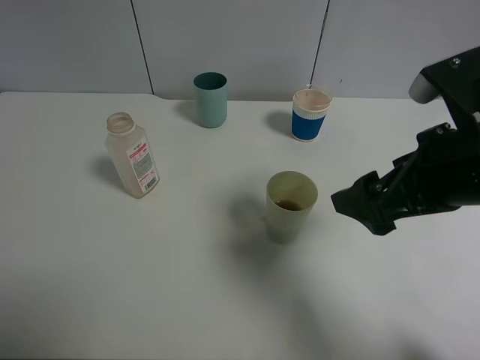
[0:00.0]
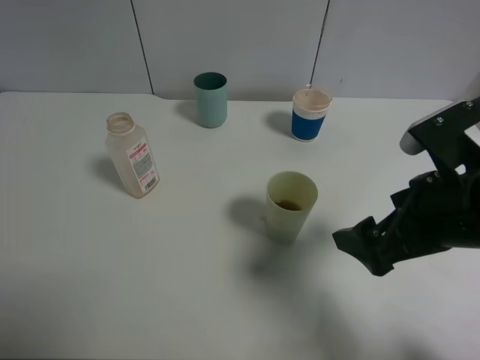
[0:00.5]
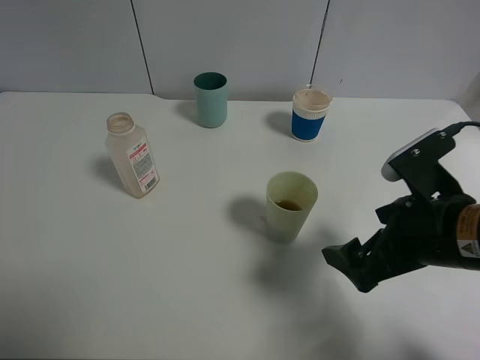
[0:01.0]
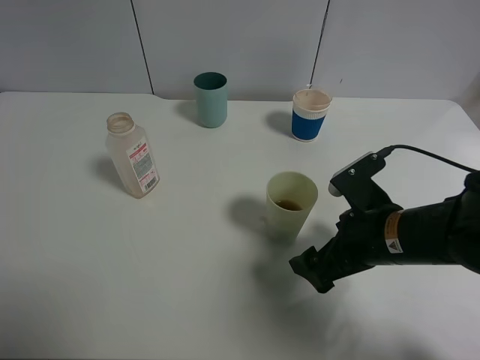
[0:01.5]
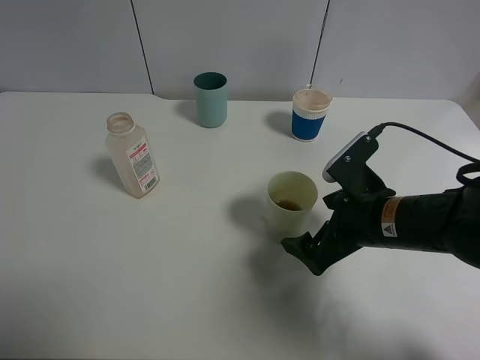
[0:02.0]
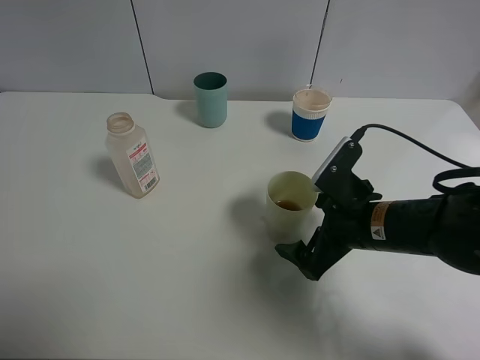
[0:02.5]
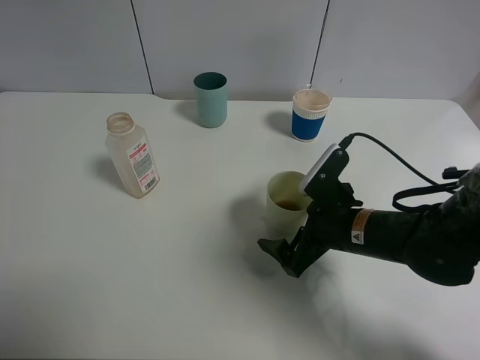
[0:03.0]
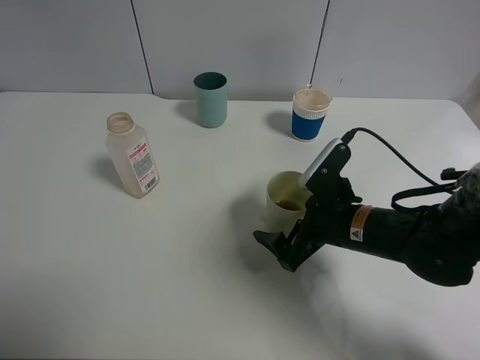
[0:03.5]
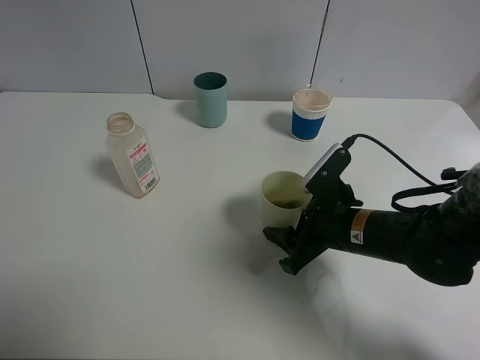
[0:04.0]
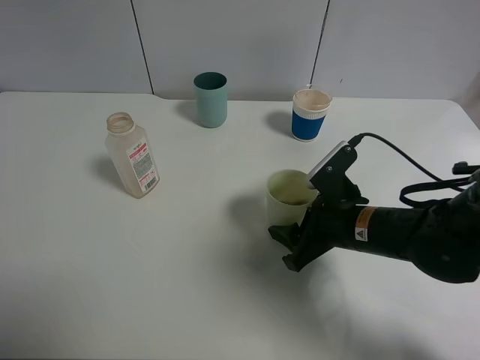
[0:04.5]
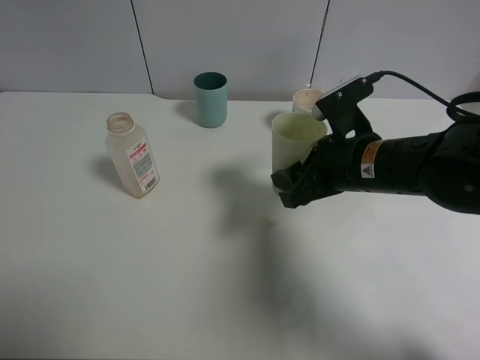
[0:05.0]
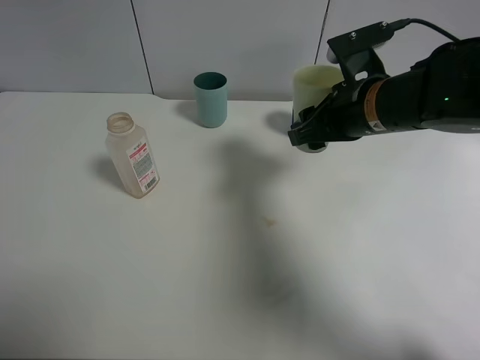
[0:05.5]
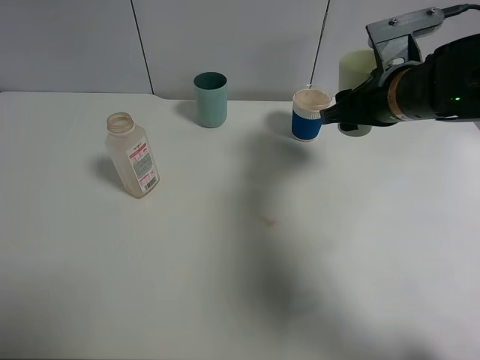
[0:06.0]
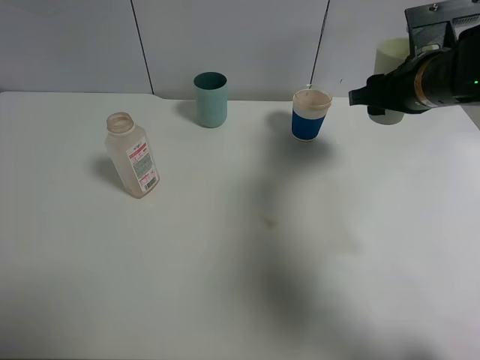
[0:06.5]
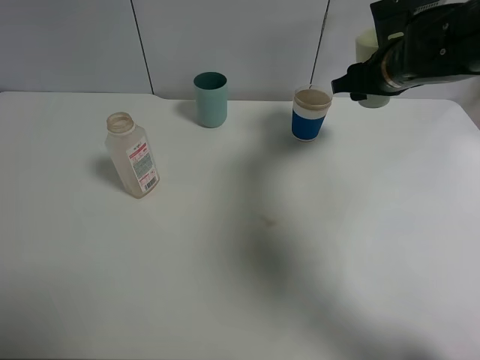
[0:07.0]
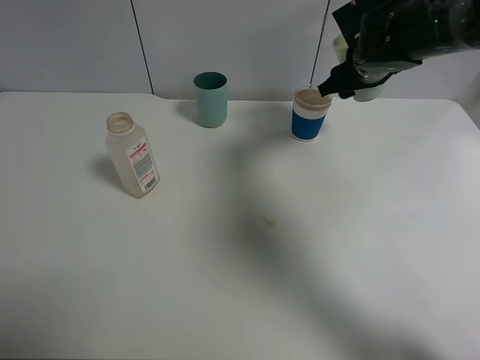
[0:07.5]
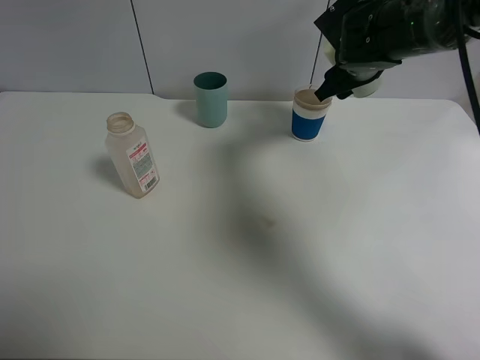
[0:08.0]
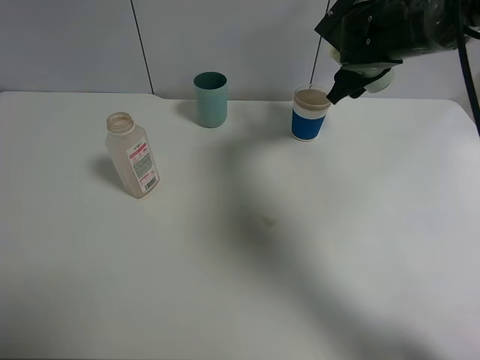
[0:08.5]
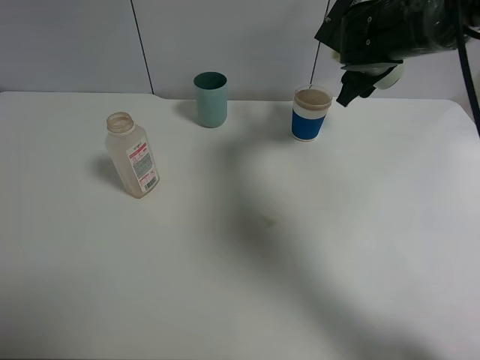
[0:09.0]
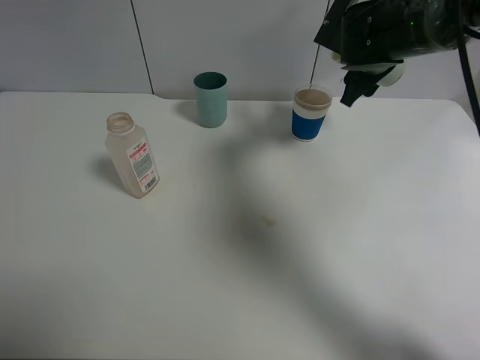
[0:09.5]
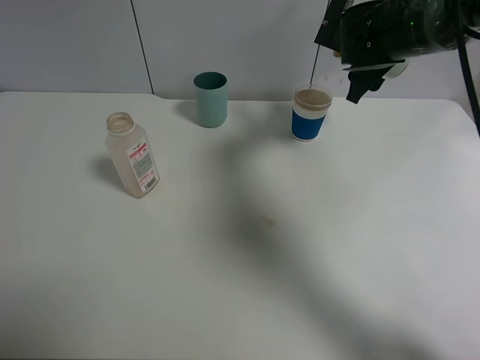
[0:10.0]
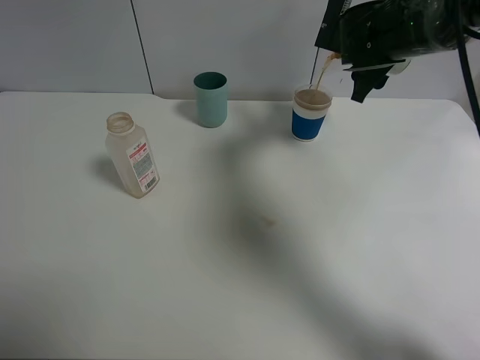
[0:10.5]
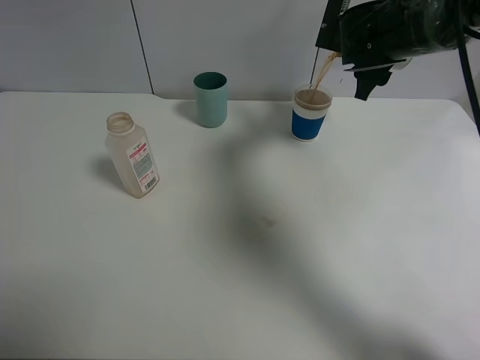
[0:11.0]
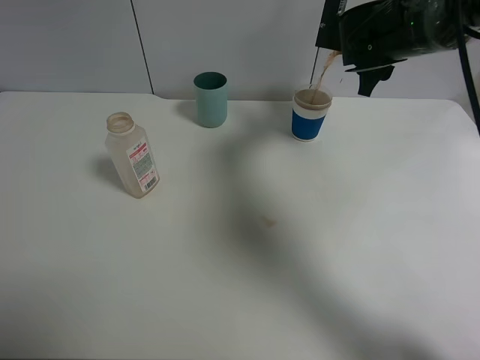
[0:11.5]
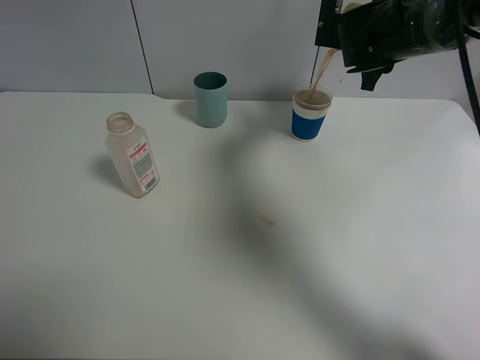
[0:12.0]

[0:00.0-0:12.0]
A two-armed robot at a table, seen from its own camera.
Task of the whole recording: use a clamp to hold the bottle of the drink, pour the beverage into a random cup, then clamp the cup containing the drink and pour the drink into another random cup.
Step, 0:00.0 to 0:04.5: Pick up the green plastic cup bottle with right gripper.
0:00.0 to 0:02.0: The right gripper heads downward, covering about 15 cm.
0:02.0 to 0:04.0: The right gripper changes place by about 5 cm, and closes.
0:04.0 to 0:06.0: The right gripper travels upward and forward by approximately 15 cm.
0:06.0 to 0:08.0: The right gripper is displaced forward by roughly 10 cm.
0:10.0 to 0:12.0: The grippers move only a little.

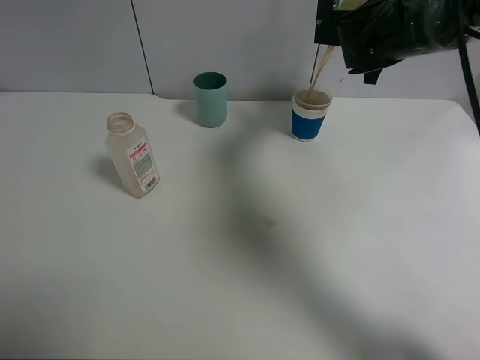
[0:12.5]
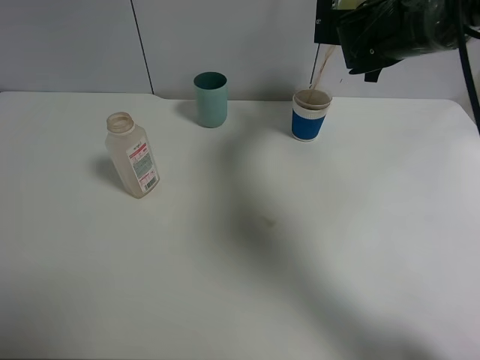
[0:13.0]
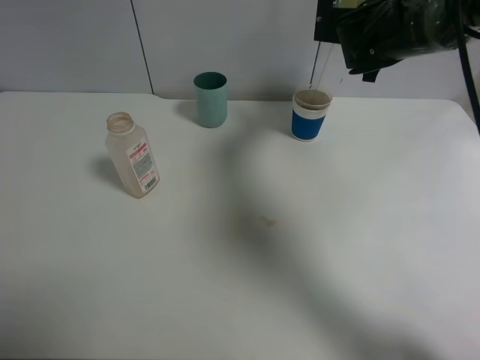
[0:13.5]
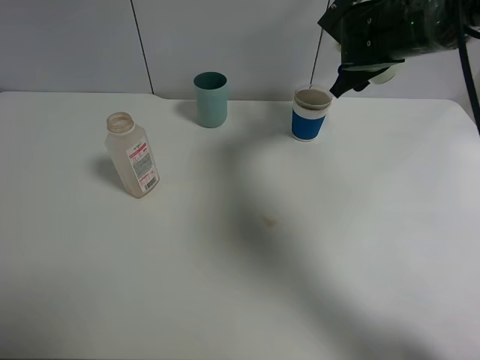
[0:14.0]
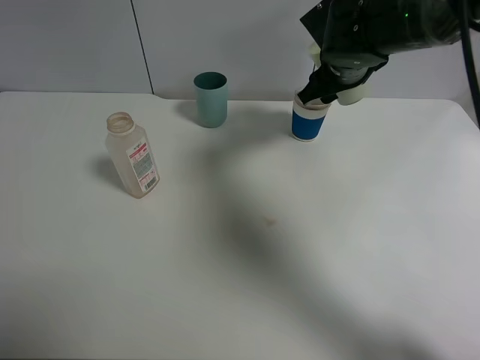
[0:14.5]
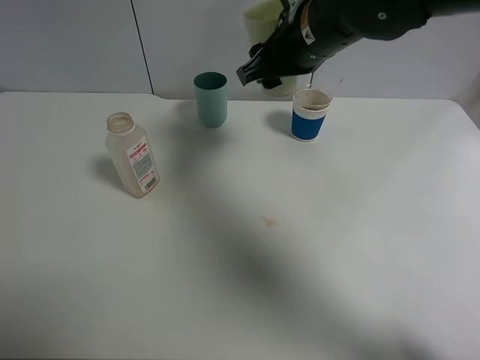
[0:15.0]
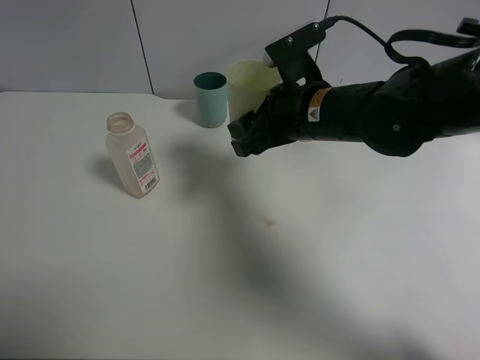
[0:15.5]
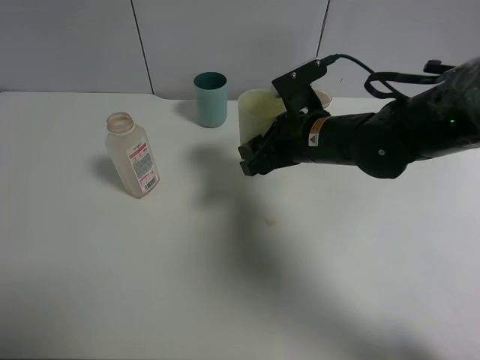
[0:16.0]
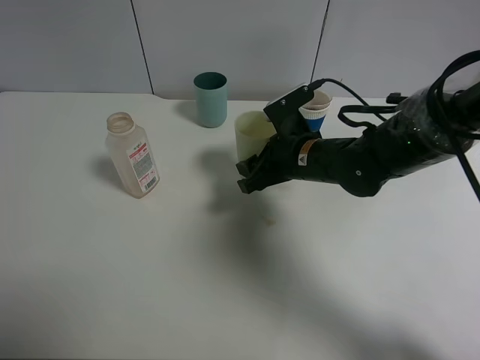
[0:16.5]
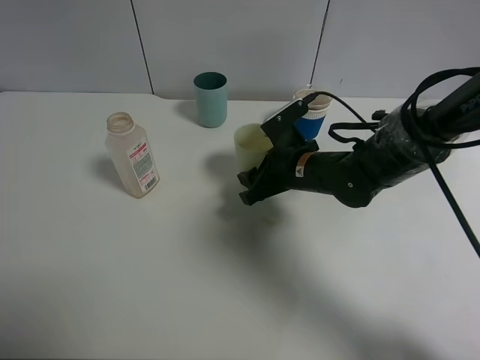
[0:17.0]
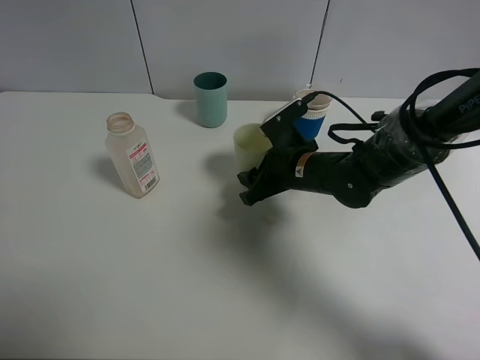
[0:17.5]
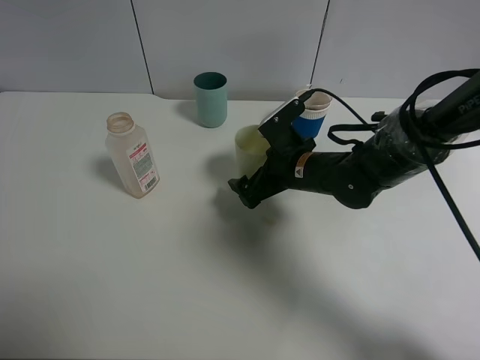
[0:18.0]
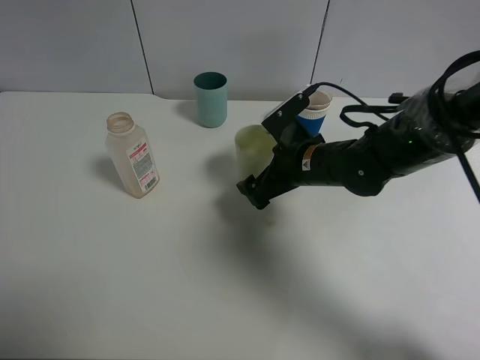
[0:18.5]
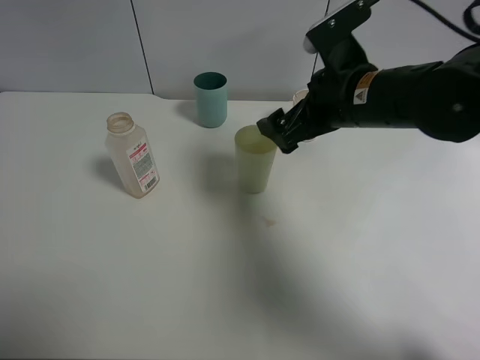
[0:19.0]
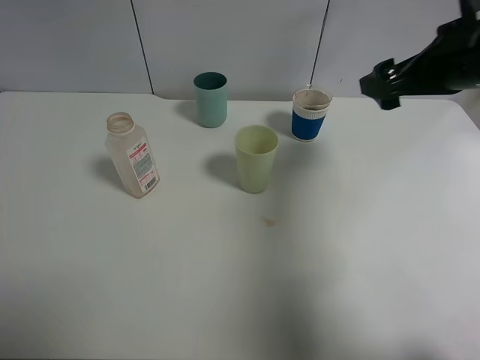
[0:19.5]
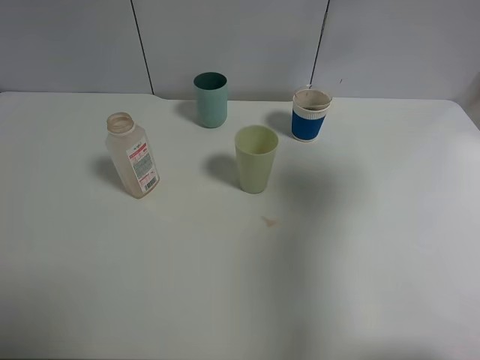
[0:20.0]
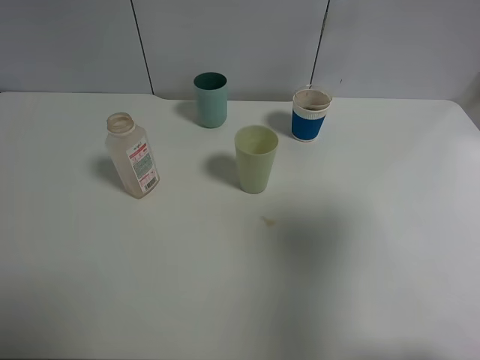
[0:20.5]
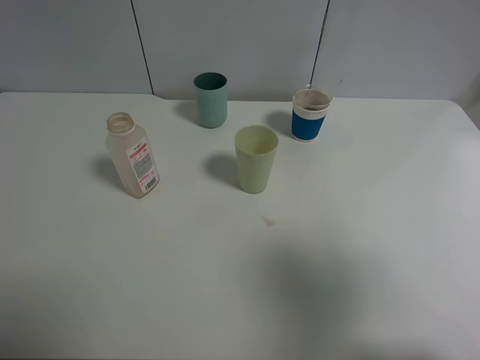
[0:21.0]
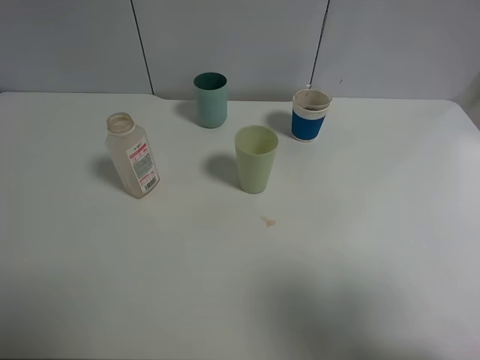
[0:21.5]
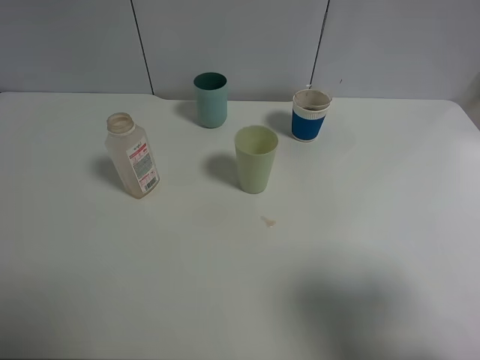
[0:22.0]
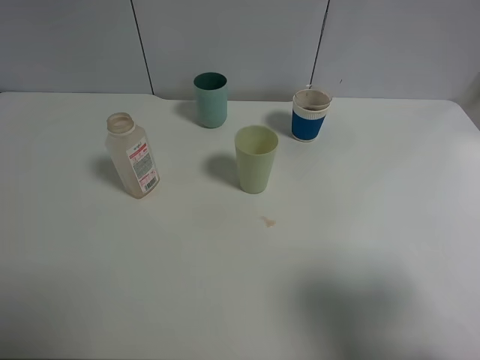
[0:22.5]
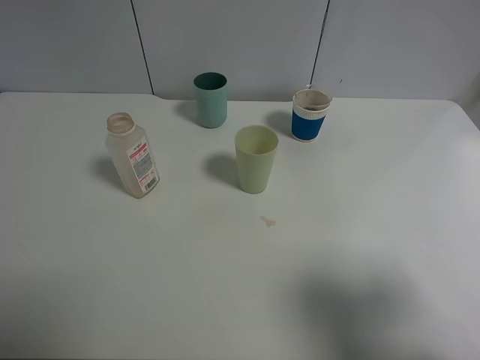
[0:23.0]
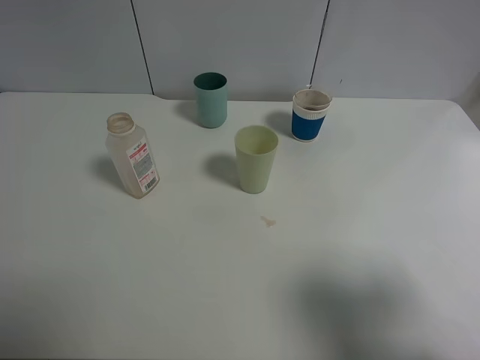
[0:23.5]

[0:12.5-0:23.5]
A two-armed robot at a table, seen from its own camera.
Task of the whole recording: use a clamp to hold the bottle of the drink, pour the beverage into a random cup, then clamp the cup containing the drink and pour the drink into another random cup.
Step, 0:14.0 to 0:18.0: Place the green plastic cup on the table with right gripper.
0:12.5 to 0:14.5: The right gripper changes place by some 5 cm.
0:14.5 to 0:16.0: The right gripper is displaced backward and downward by roughly 10 cm.
0:16.0 to 0:18.0: The right gripper travels downward by approximately 5 cm, and opens up.
0:18.0 to 0:20.0: The right gripper is displaced upward, to the right and backward by about 35 cm.
0:20.0 to 0:21.5: The right gripper moves backward, some 20 cm.
0:21.5 to 0:23.5: The right gripper moves downward, some 5 cm.

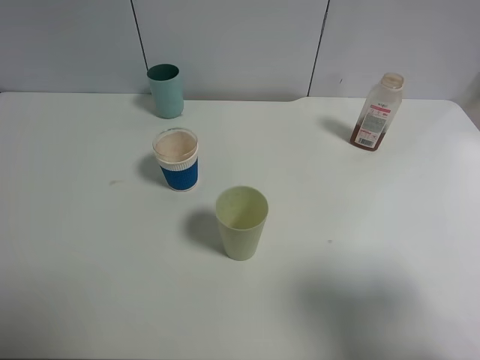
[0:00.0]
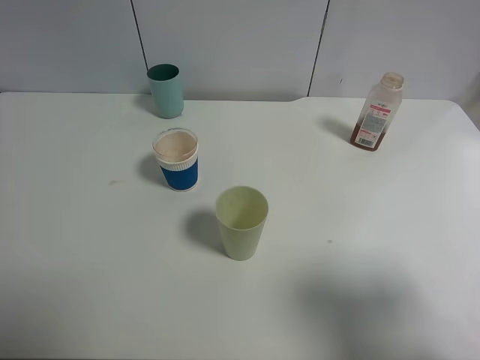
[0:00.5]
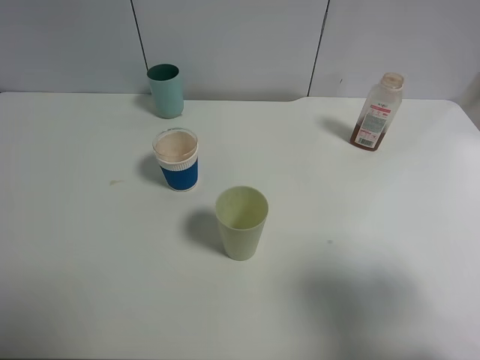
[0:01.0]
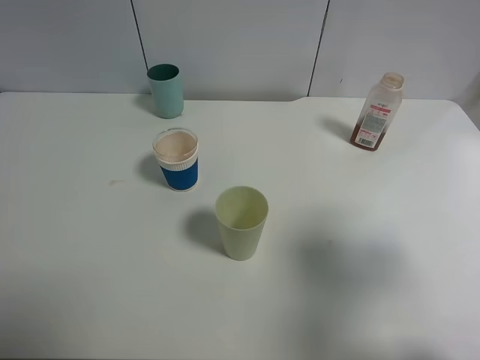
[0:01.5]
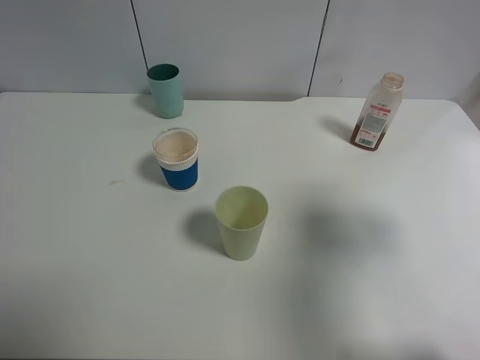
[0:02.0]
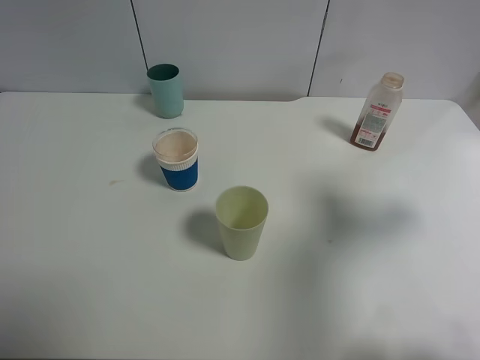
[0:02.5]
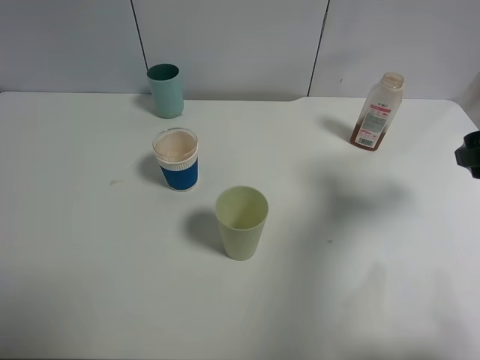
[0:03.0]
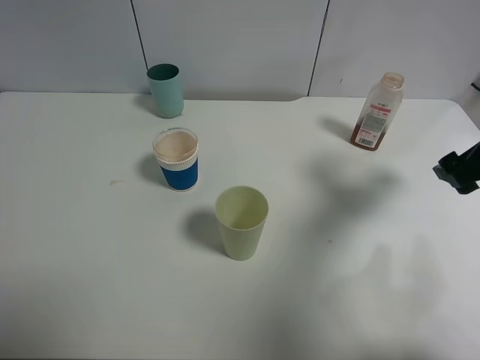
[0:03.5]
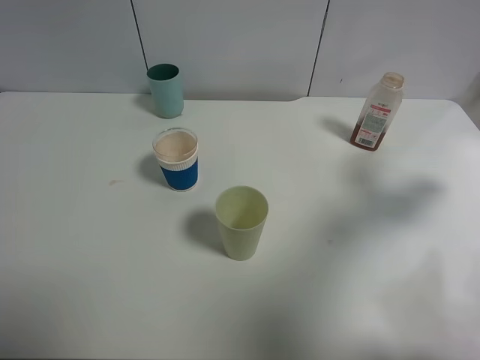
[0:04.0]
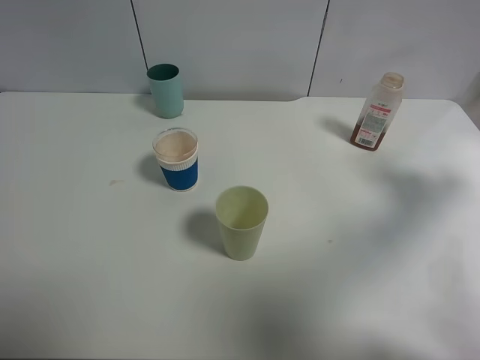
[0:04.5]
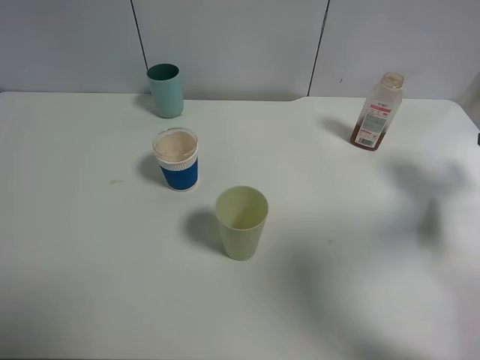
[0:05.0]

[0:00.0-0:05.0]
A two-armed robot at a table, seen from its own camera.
Task of the whole recording: use a clamp to hold the bottle of the drink, pour the beverage into a random cup, then clamp the cup containing the drink and pour the drink into another random cup.
0:00.0 to 0:02.5: The right gripper travels forward by some 15 cm.
0:02.5 to 0:05.0: The right gripper moves to the right, forward and downward, roughly 20 cm.
